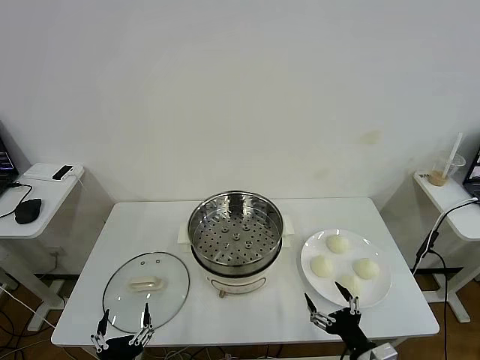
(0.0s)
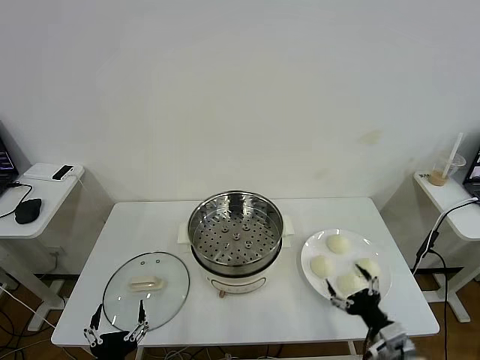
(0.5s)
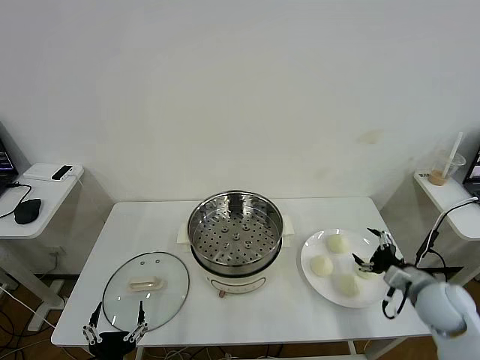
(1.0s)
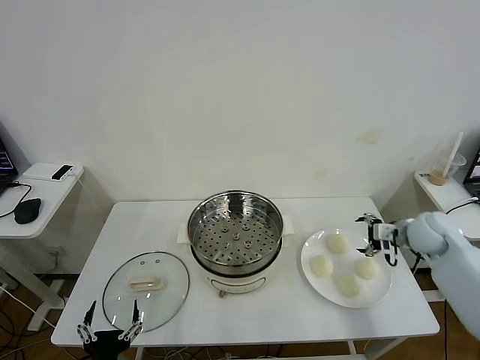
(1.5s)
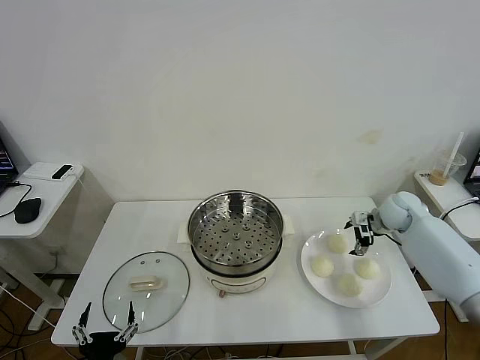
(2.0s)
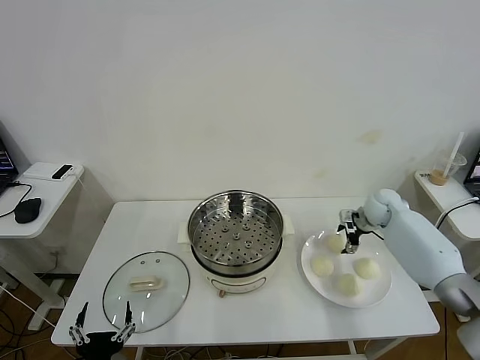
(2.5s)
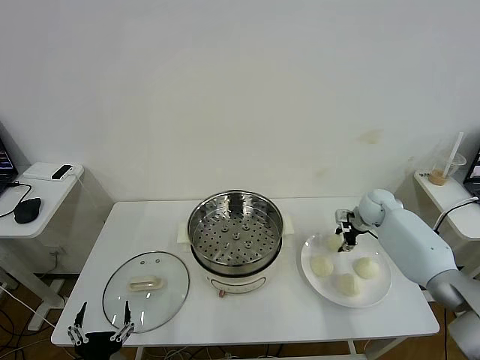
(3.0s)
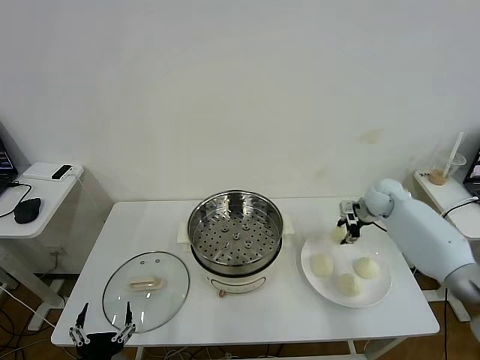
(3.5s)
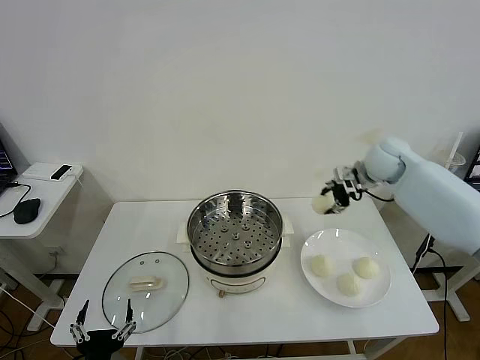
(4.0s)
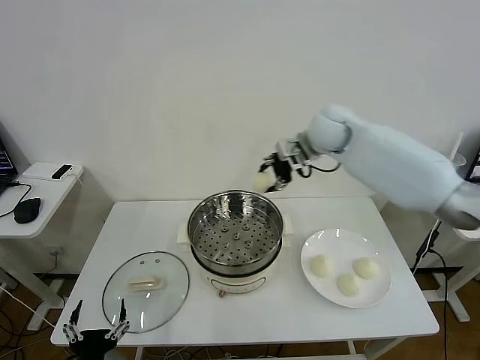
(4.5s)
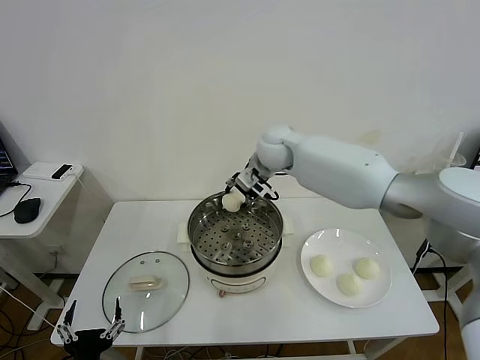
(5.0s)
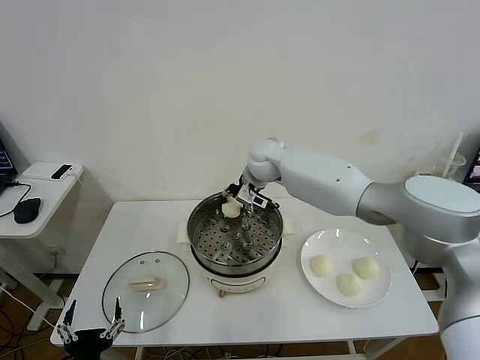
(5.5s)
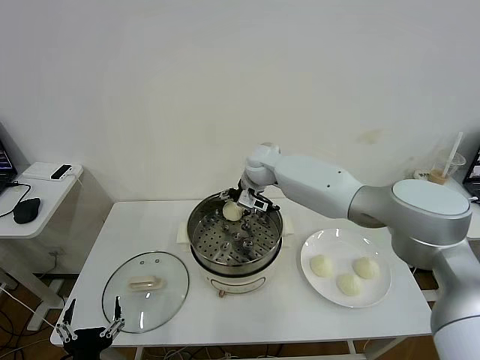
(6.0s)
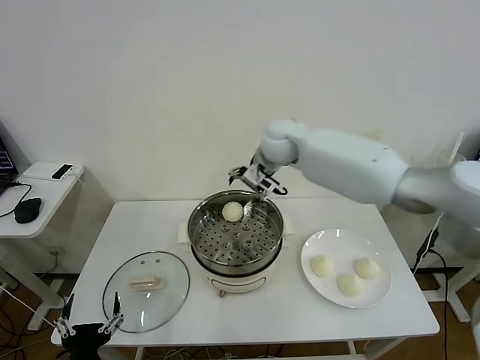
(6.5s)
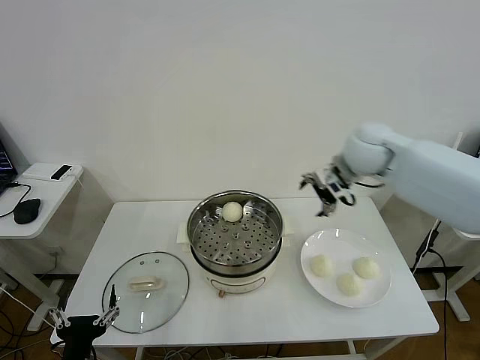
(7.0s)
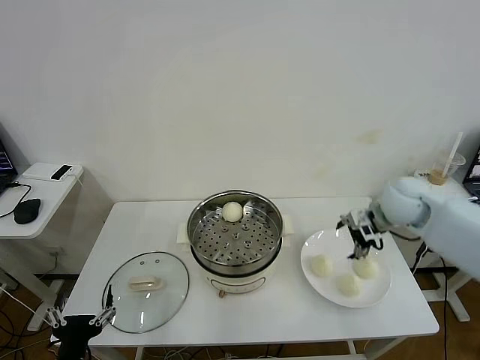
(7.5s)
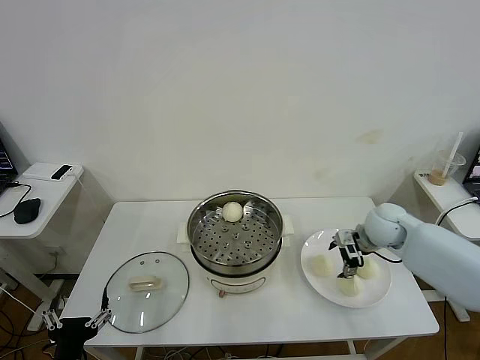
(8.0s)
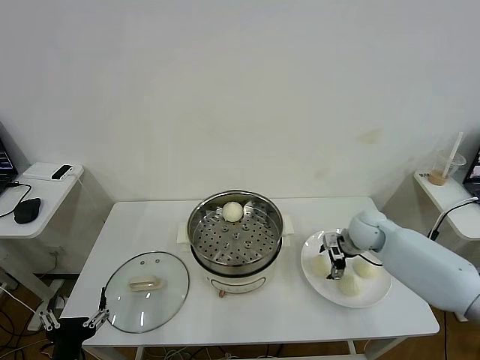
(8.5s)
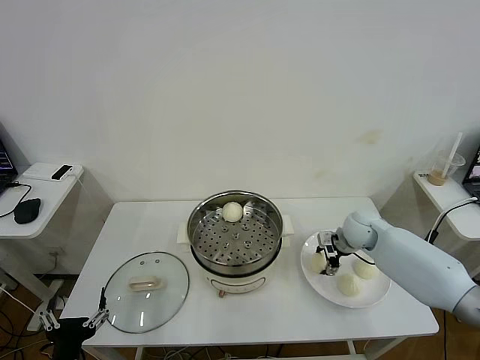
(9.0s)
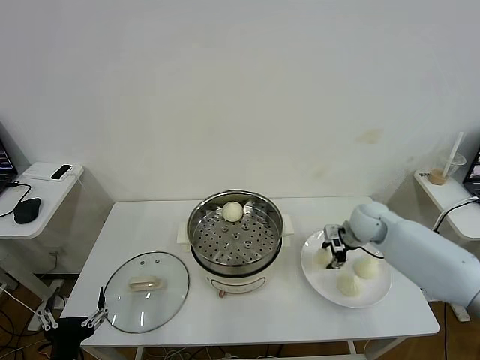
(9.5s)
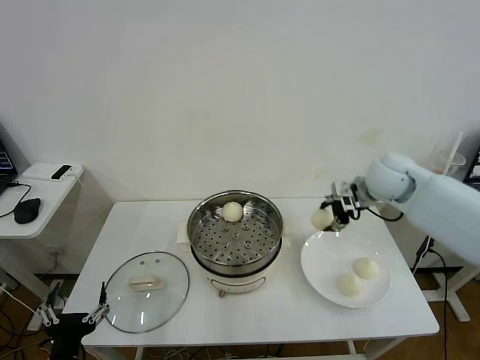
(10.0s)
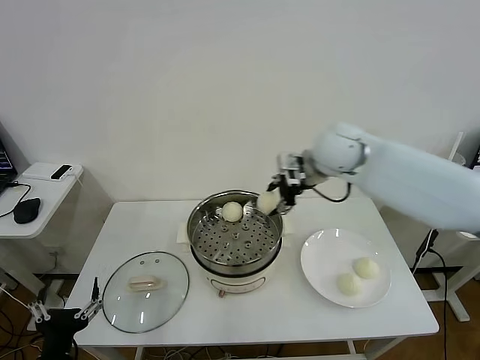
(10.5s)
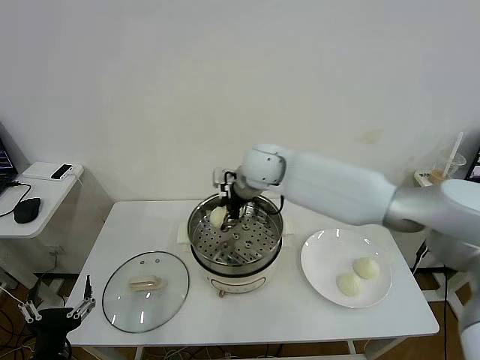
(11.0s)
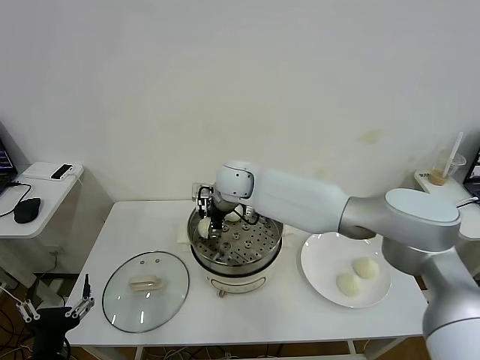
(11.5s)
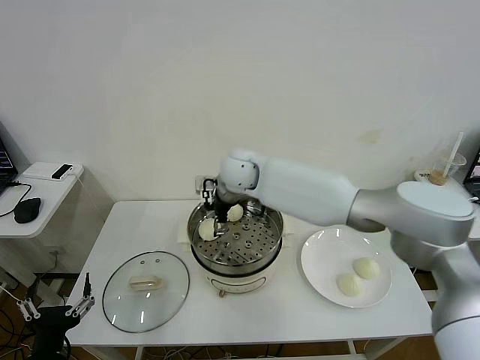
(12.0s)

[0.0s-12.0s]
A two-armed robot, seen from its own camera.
Task of the whole recording: take steamed baozi put them in steamer then cover it.
Step, 0.0s to 2.5s: Grasp the baozi in the plate with right gripper.
Step, 3.0s to 6.0s: Place the baozi on the steamer with right gripper.
Step, 6.5s to 9.0s: Grasp the baozi in the plate with right gripper.
Step, 9.5s to 11.5s: Place the baozi on the steamer with right gripper.
2.0s to 4.0s: The right gripper heads upward and to the left, covering roughly 20 cm, and closes its fingers.
4.0s to 6.0s: The right gripper heads to the left, covering some 25 cm, and opens.
6.0s to 8.0s: The right gripper goes about 30 cm to the right and backward.
8.0s to 10.0s: The right gripper shifts about 15 cm upward, and closes up.
10.0s to 12.0s: The right gripper goes roughly 30 cm to the left, and opens.

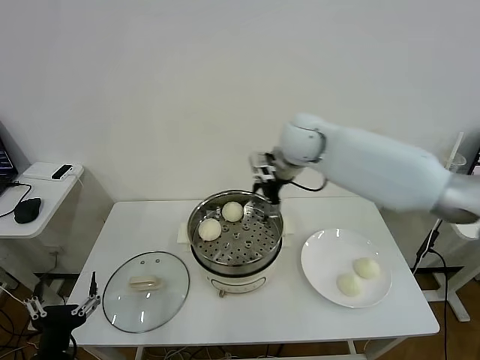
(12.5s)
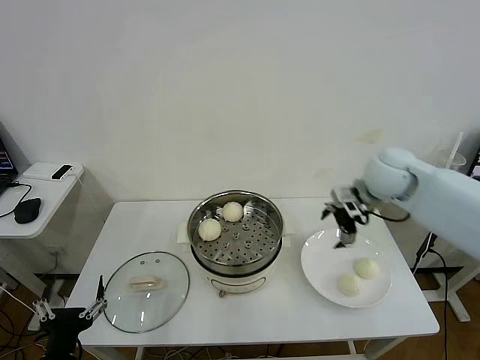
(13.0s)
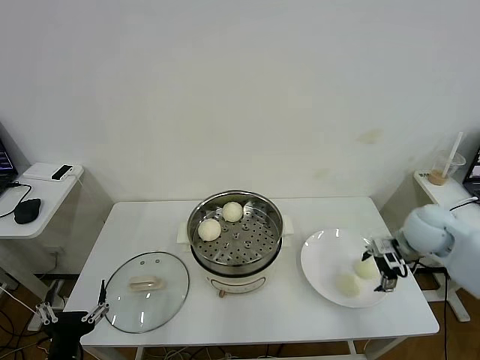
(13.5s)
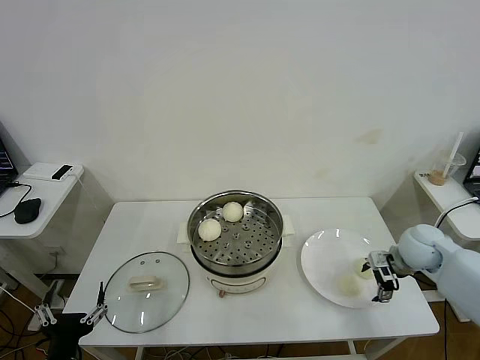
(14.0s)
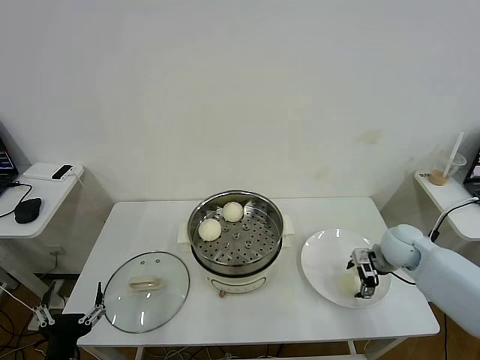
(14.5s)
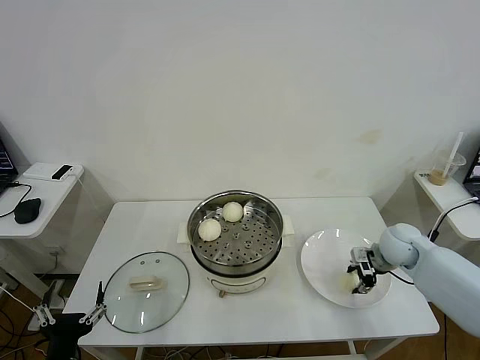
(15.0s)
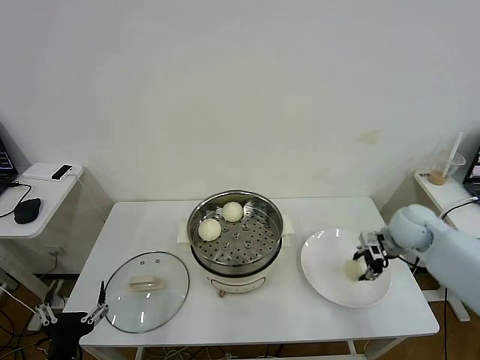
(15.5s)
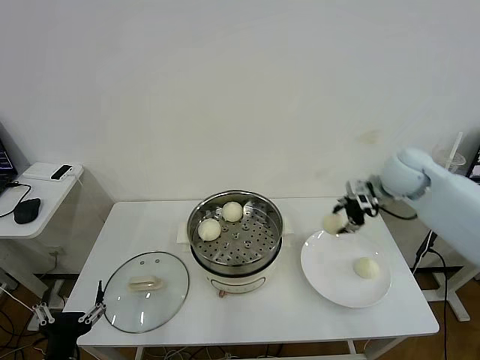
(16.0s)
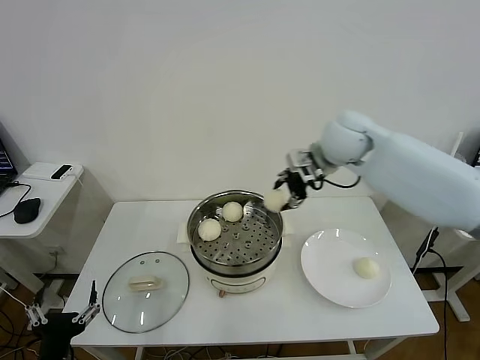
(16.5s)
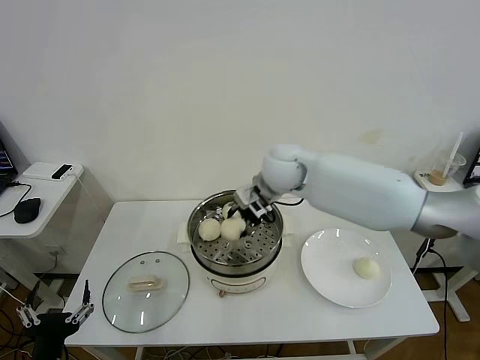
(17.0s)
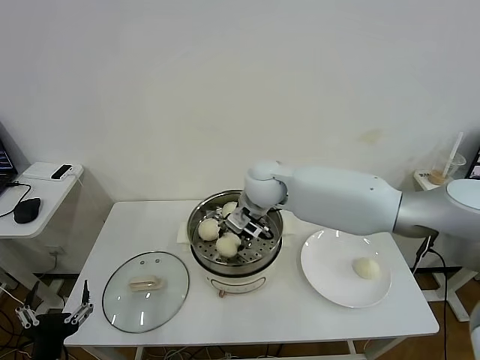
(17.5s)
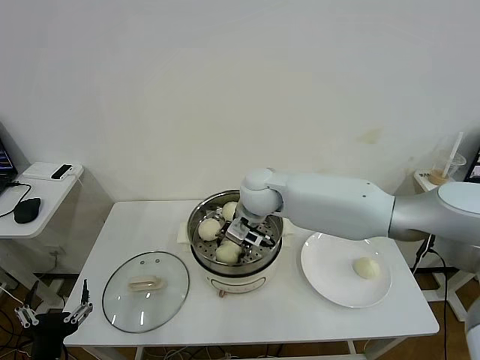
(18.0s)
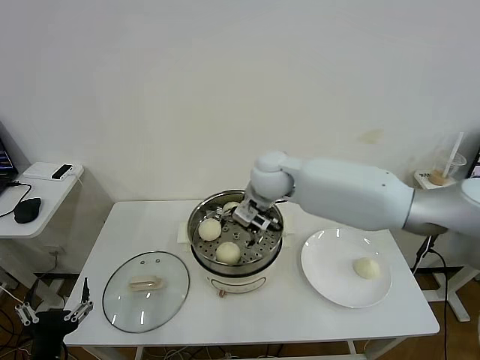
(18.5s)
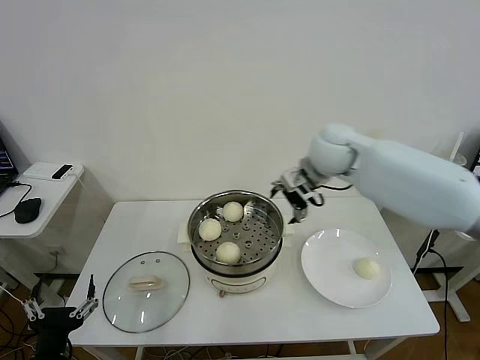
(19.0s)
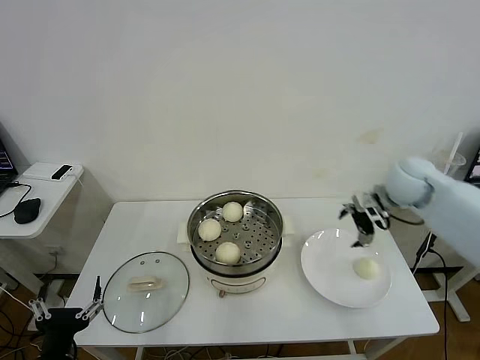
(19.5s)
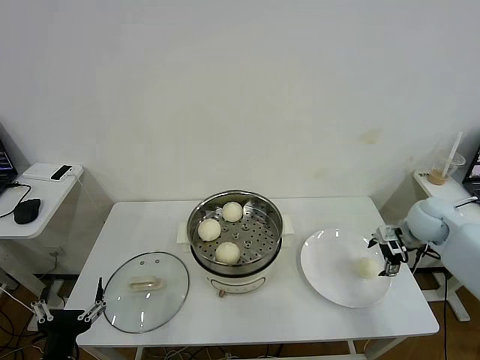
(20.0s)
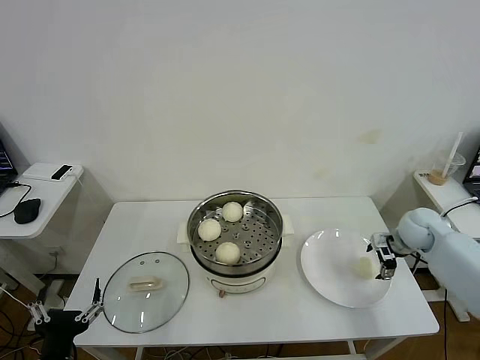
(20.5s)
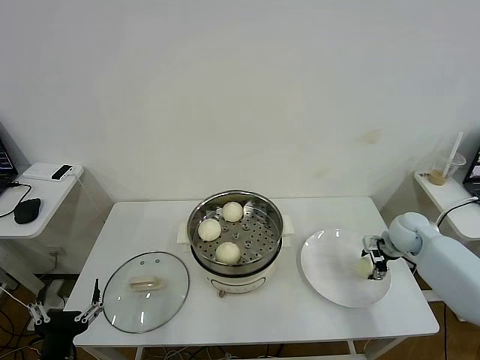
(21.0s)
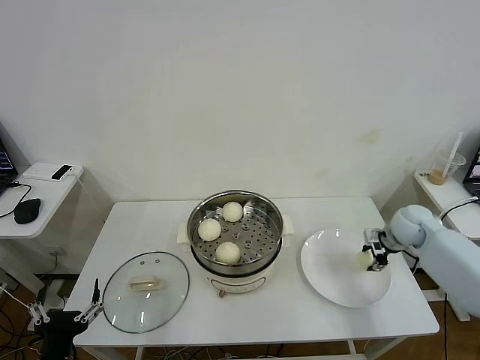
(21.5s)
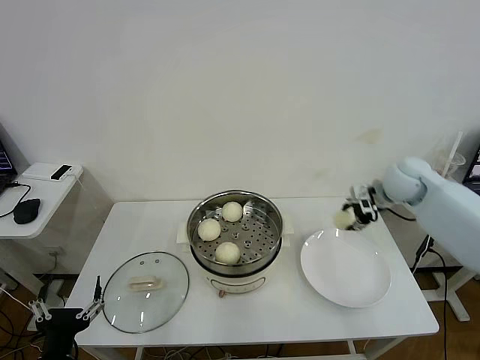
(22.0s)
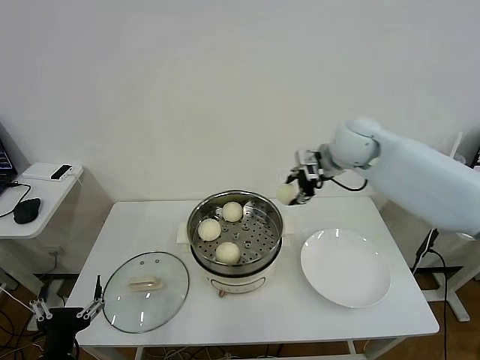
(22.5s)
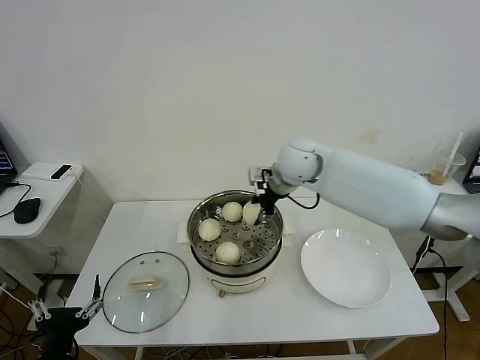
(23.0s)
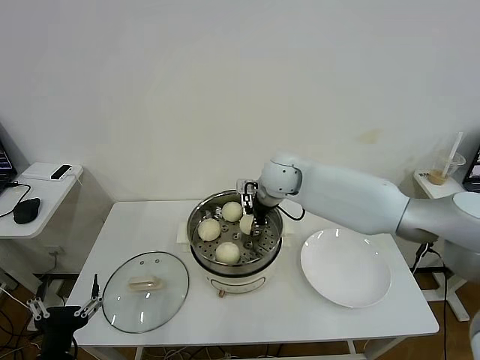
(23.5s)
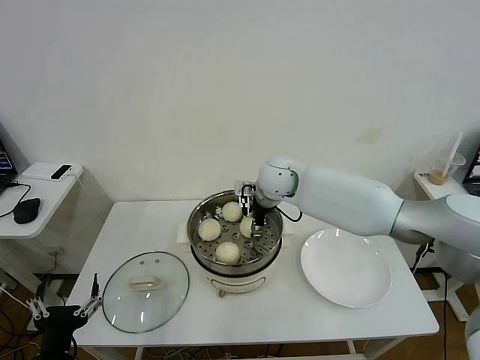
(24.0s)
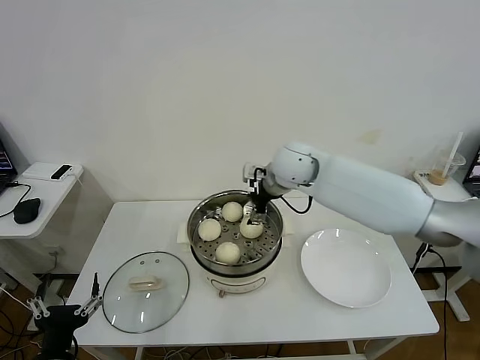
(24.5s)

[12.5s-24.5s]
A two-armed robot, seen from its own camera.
Task of the whole recording: take steamed baozi put them in steamer then cover it.
Step, 12.5s to 15.0s: Grasp the baozi in the plate with right gripper.
Step, 15.5s to 18.0s: Place the baozi on the steamer with right gripper.
Step, 18.5s to 21.0s: Grasp the baozi in the plate with right gripper.
12.5s to 14.5s: The right gripper shifts about 35 cm to the right and downward.
14.5s to 16.5s: The right gripper is displaced upward and to the left by about 30 cm, and closes up.
16.5s to 18.5s: The right gripper travels to the left and downward by roughly 15 cm, and opens its fingers.
18.5s to 20.5s: The right gripper moves to the right and downward, roughly 40 cm.
20.5s to 22.5s: The right gripper shifts approximately 30 cm to the left and upward, and closes up.
22.5s to 24.5s: The right gripper shifts roughly 10 cm to the left, and opens.

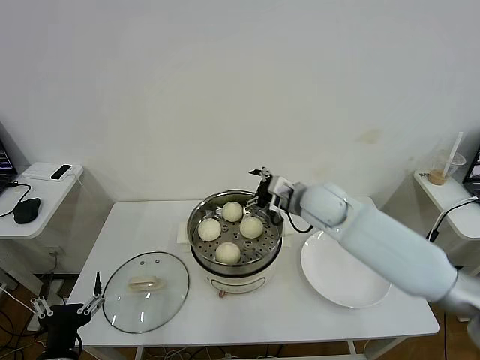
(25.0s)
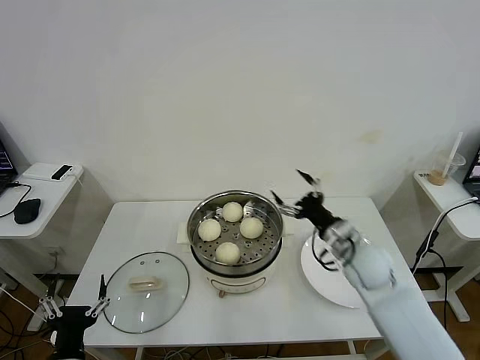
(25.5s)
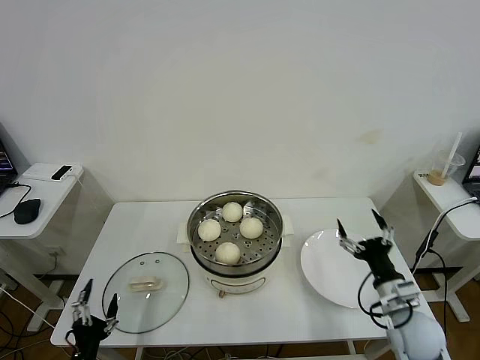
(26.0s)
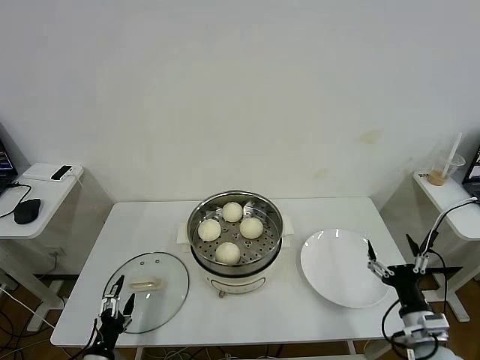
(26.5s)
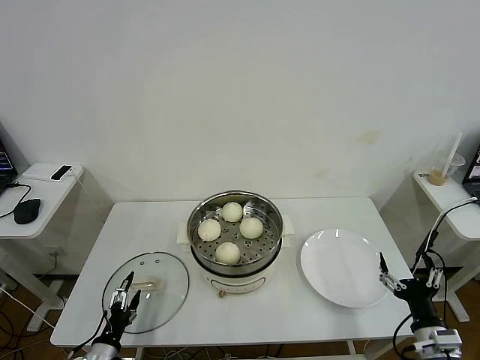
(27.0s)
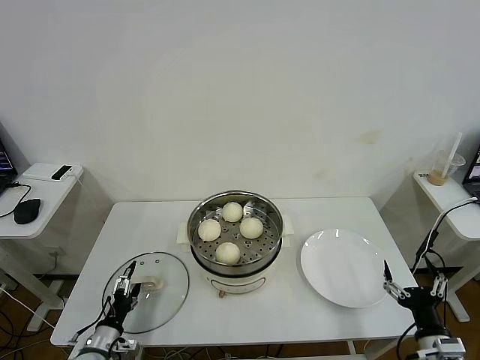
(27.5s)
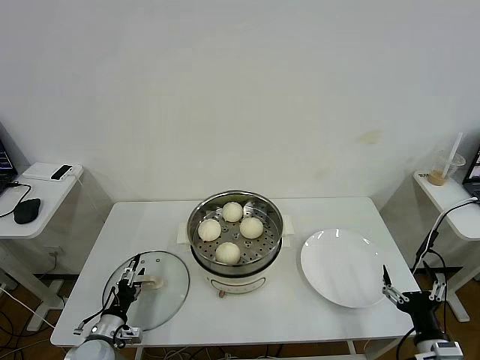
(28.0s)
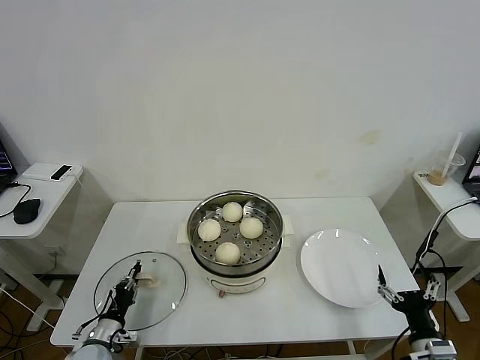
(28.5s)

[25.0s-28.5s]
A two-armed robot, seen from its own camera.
Task of the whole recording: take steamed baozi put them in steamer then cover it.
25.0s to 27.0s: The right gripper is displaced backward, to the right and downward by some 40 cm, while the left gripper shifts some 15 cm downward and forward.
27.0s to 28.5s: The left gripper is displaced forward by about 5 cm, and closes its fingers.
